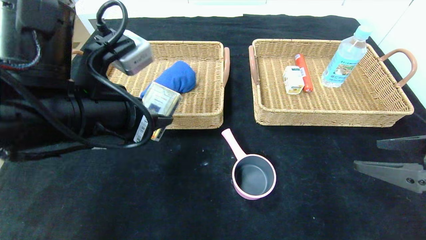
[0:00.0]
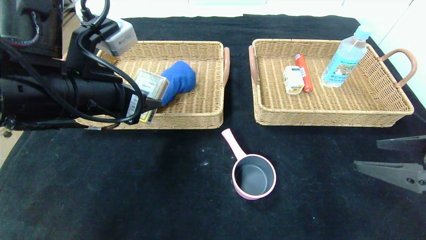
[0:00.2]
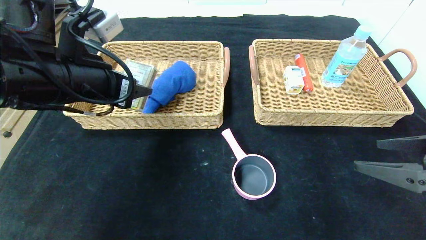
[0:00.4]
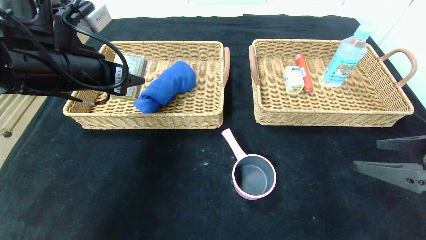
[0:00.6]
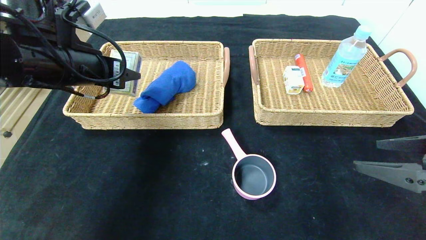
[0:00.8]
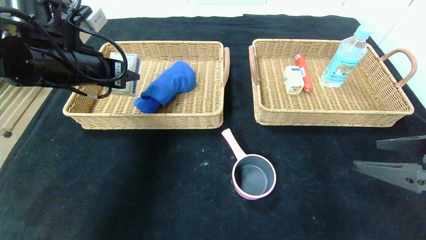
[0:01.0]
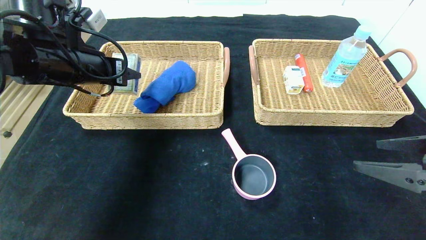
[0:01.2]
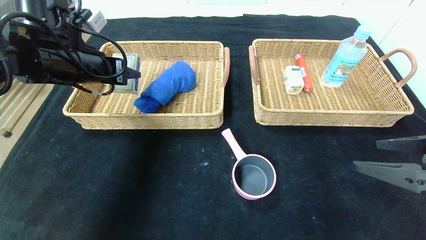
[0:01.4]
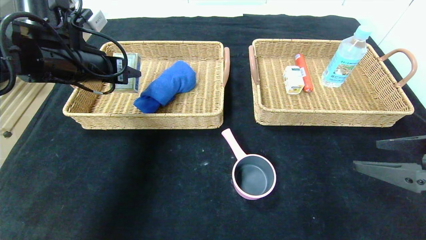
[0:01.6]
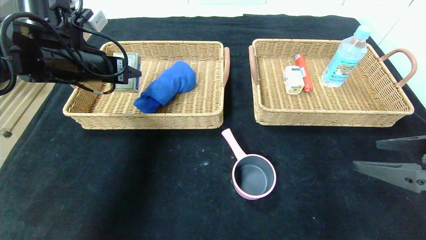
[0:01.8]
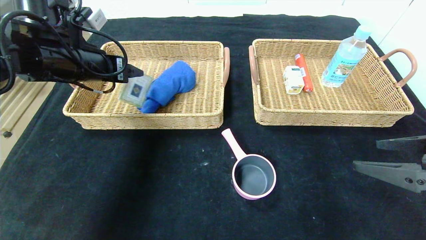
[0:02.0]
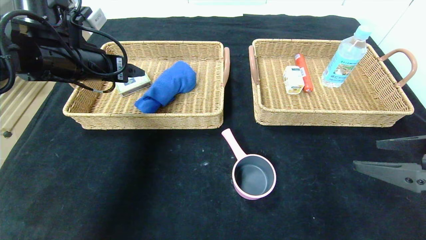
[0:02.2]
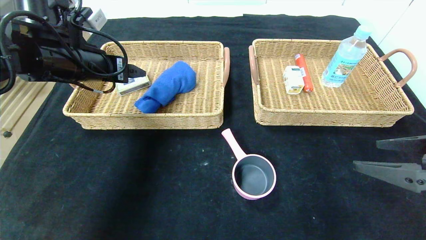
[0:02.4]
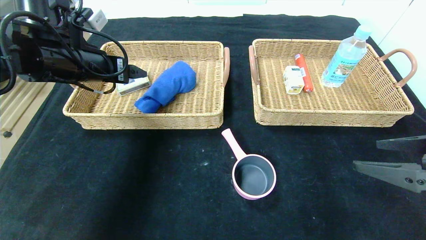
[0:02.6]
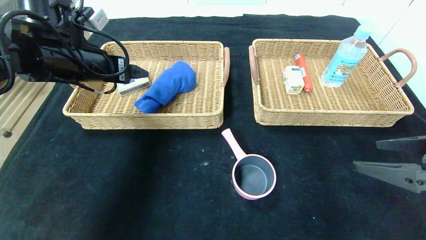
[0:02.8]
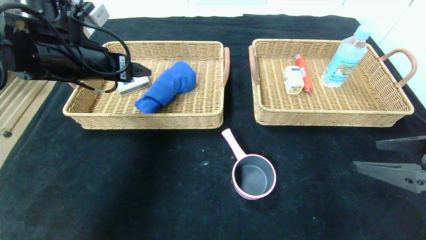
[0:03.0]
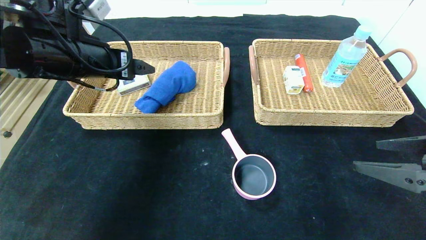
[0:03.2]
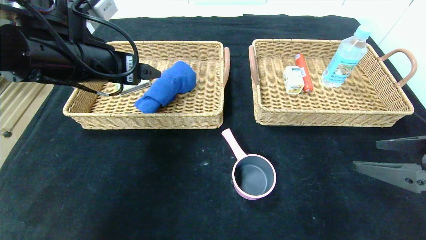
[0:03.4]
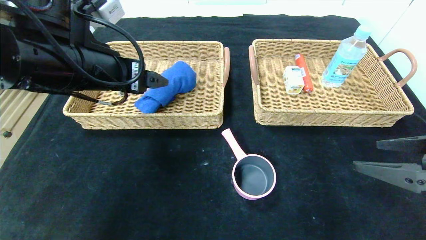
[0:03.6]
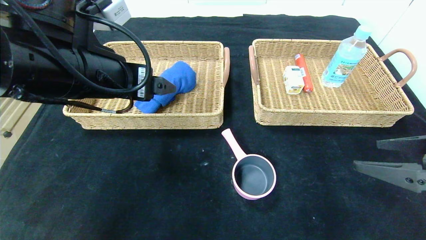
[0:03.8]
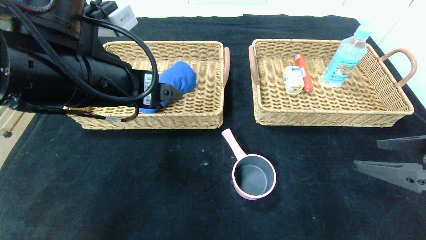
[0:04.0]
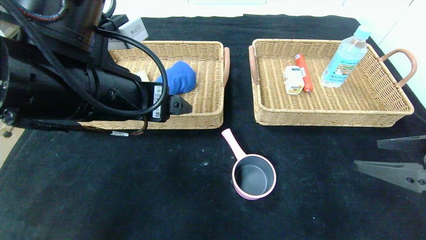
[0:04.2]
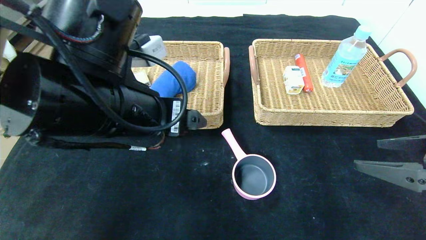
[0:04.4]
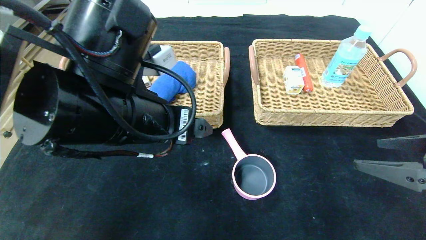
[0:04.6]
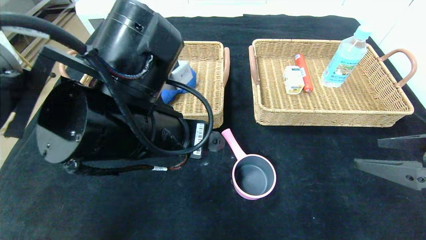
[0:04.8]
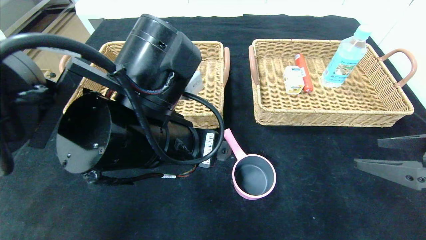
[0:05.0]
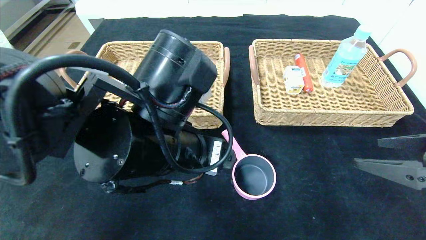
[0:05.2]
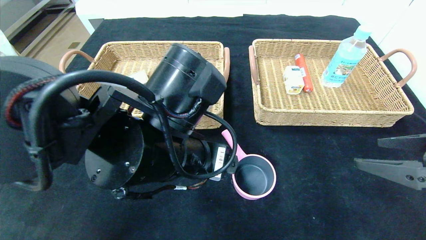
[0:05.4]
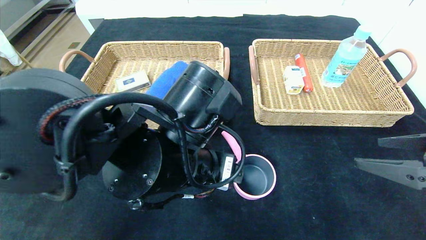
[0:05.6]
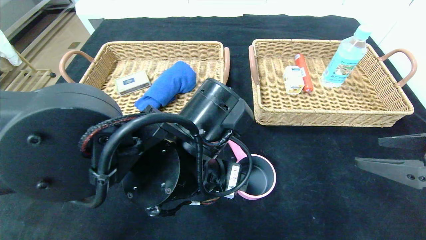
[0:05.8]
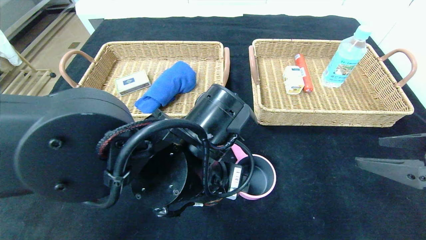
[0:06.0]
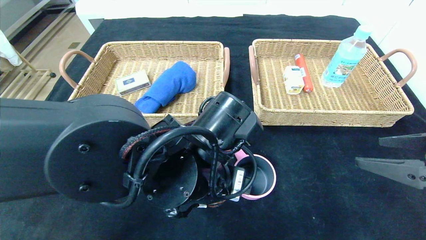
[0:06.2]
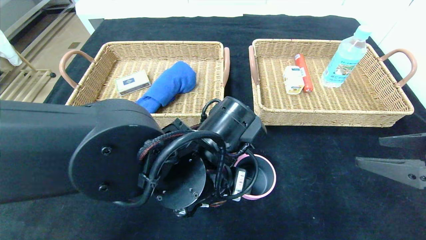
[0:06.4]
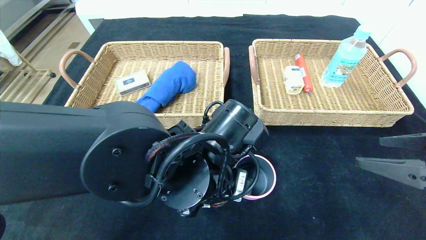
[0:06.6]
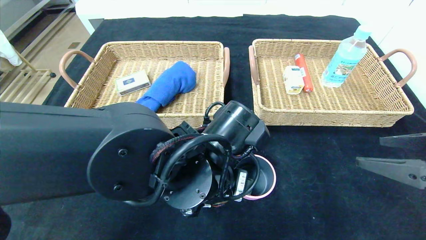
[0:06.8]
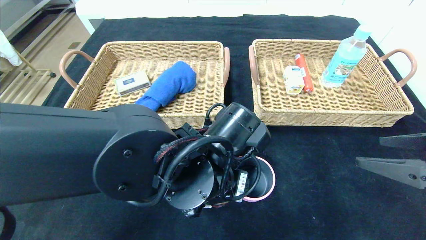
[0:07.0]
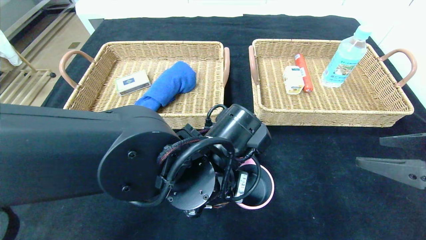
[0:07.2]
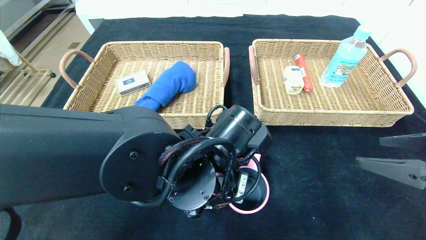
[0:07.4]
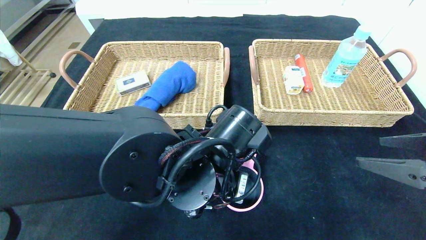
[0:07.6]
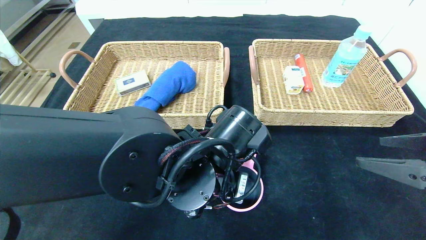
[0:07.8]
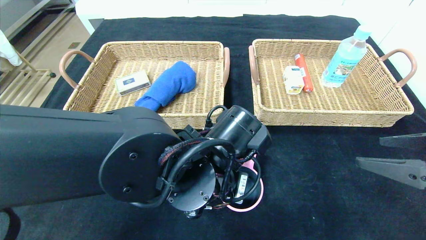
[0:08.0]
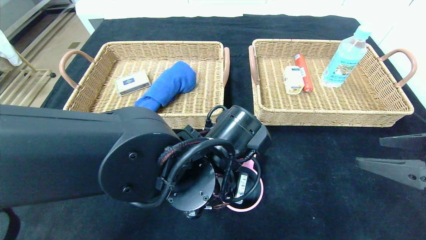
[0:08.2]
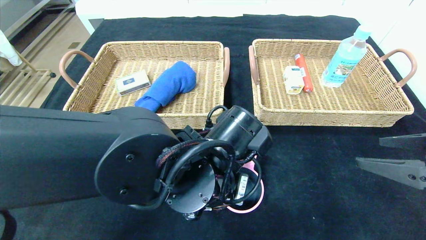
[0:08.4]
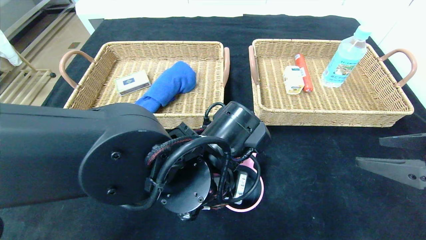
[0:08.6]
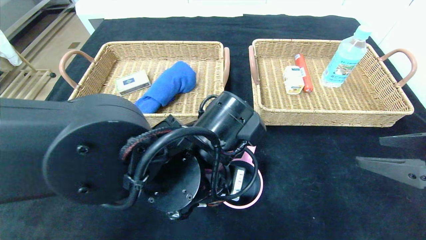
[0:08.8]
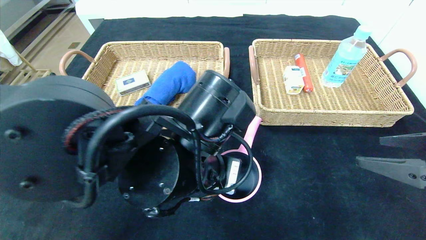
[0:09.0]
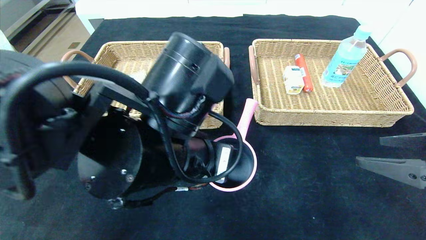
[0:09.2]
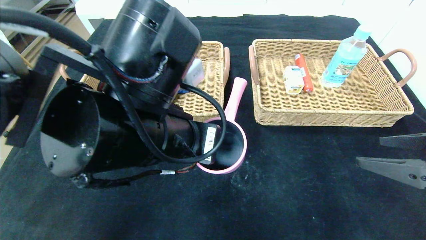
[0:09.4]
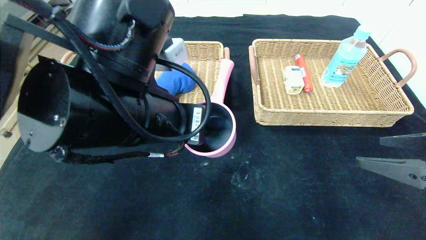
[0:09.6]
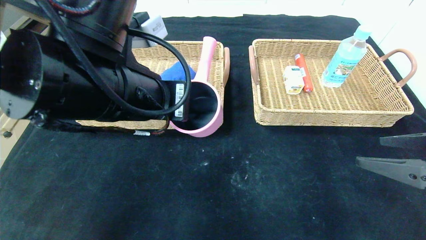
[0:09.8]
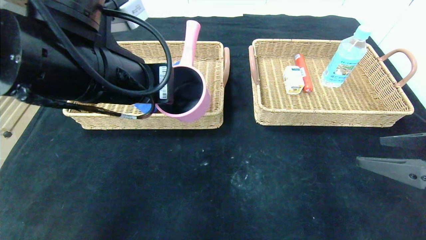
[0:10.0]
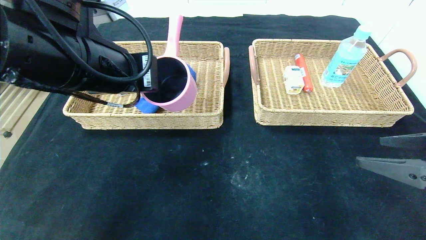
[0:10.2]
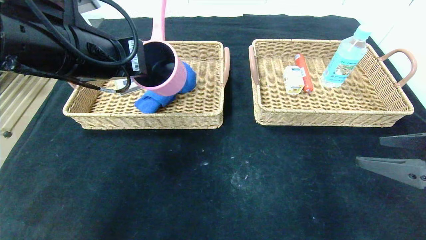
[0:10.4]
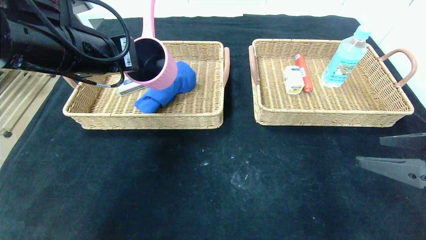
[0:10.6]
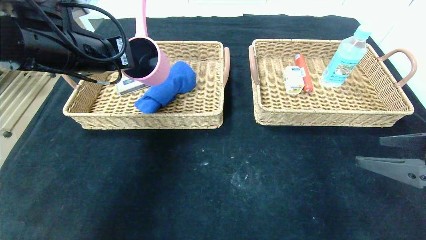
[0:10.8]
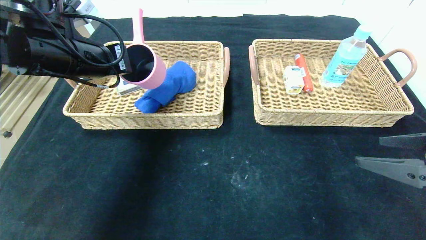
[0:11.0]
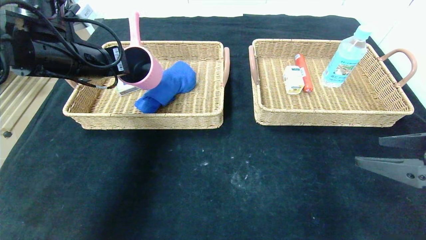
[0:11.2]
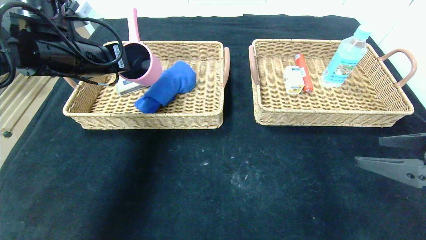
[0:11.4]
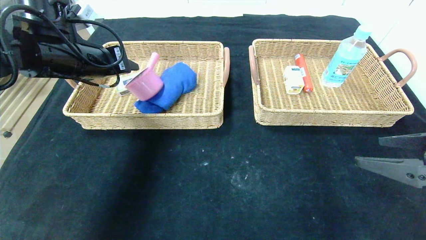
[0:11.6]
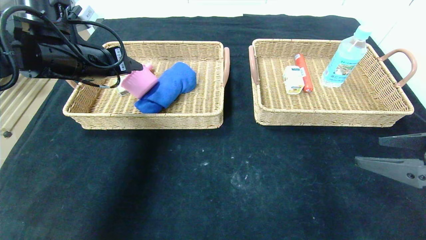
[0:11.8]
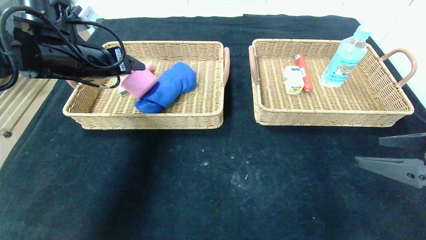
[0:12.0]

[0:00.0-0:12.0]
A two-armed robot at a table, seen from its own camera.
Step, 0:00.0 to 0:03.2: Grasp the playing cards and put it in the left basket.
0:00.0 to 0:01.6: The left gripper shifts some 15 cm forward and to the left.
0:01.6 to 0:03.0: The left gripper opens its fingers.
0:03.0 to 0:04.4: The left gripper is displaced to the right and backward by approximately 15 cm.
0:04.4 to 0:06.0: The left gripper goes approximately 10 cm downward and to the right.
0:06.0 to 0:07.6: The left gripper closes up.
0:07.6 to 0:09.0: The left gripper changes place by roughly 5 cm.
0:09.0 to 0:10.4: The left gripper heads to the left, upward and forward, covering approximately 20 cm.
0:10.4 to 0:12.0: The left gripper goes some 10 cm forward and to the left, and opens.

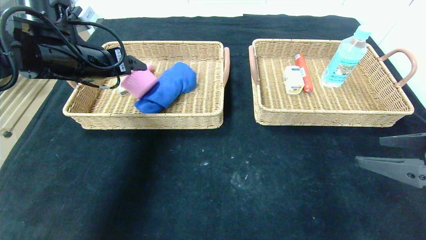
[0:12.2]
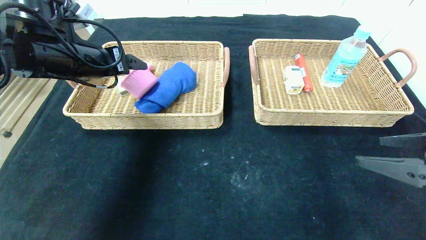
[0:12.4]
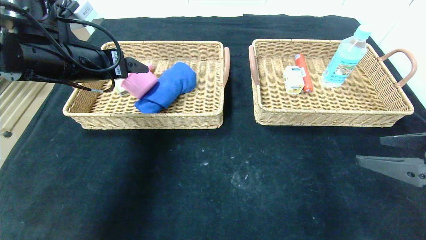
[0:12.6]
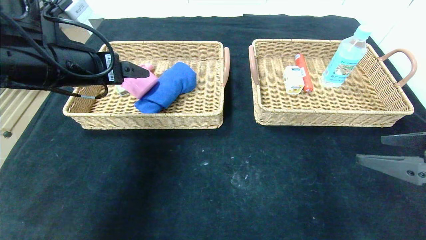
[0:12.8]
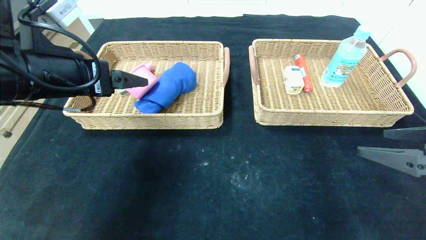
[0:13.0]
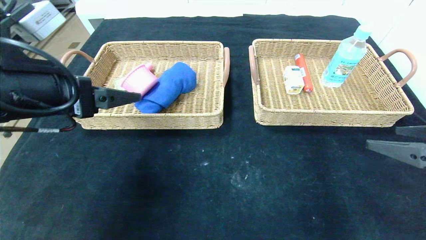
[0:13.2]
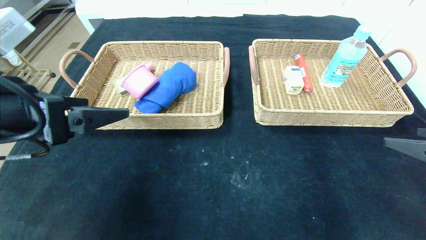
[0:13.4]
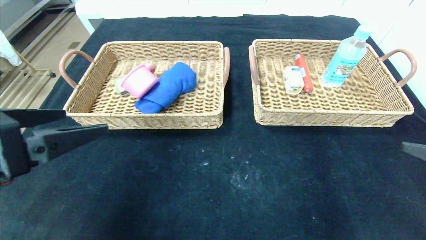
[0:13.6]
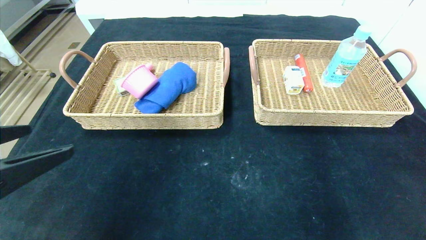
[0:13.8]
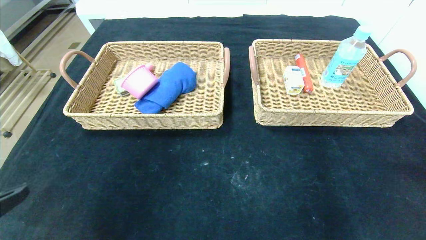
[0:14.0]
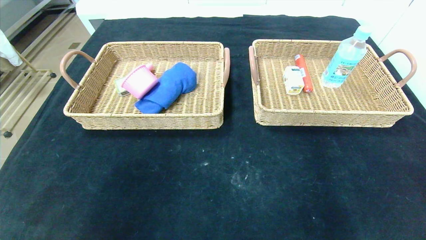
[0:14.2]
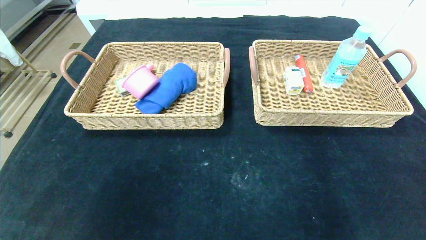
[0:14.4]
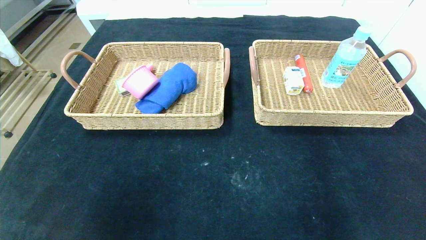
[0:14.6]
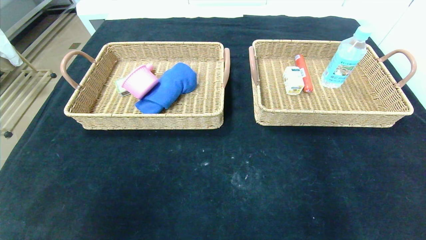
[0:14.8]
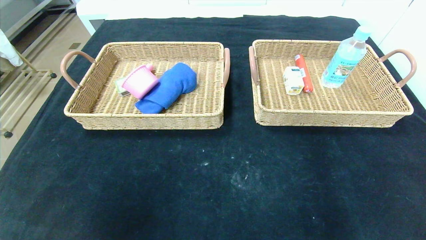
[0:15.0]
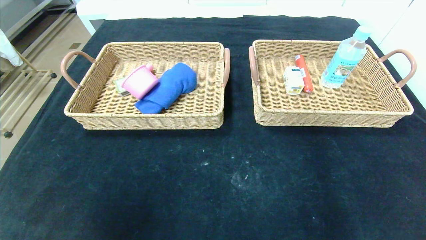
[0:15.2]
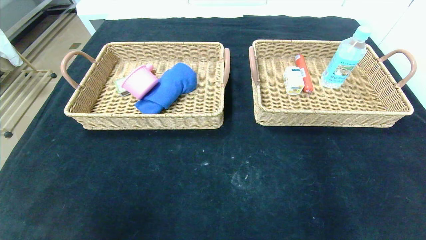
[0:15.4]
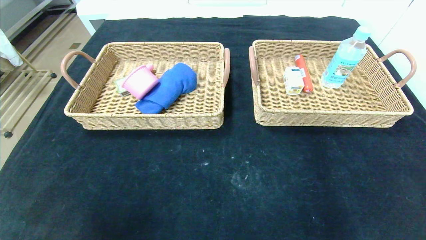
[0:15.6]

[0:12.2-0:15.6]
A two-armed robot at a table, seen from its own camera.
Step, 0:12.2 to 0:15.4: Grasp the pink pot and put it in the left basket.
0:12.2 to 0:13.8: The right gripper goes approximately 5 cm backward; the left gripper shifts roughly 25 cm backward.
0:13.8 to 0:15.6: Both grippers move backward and downward, about 20 cm.

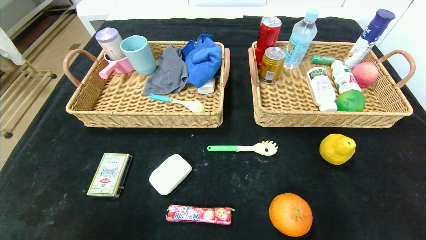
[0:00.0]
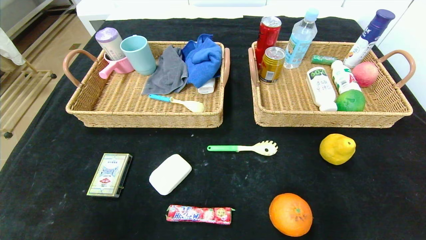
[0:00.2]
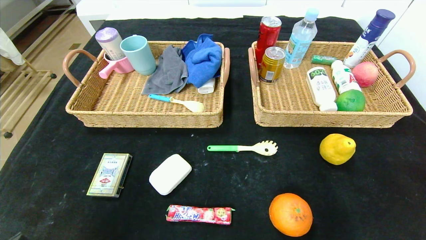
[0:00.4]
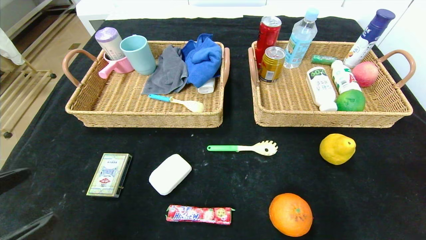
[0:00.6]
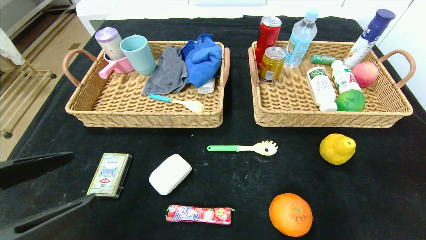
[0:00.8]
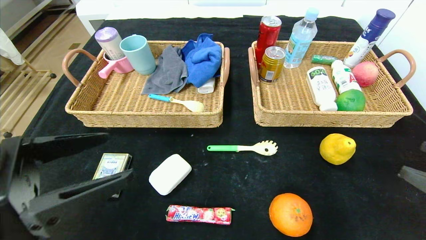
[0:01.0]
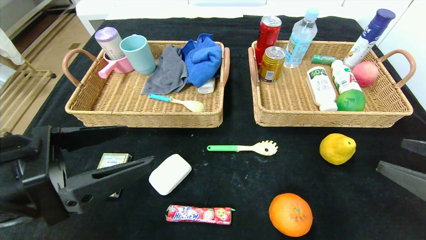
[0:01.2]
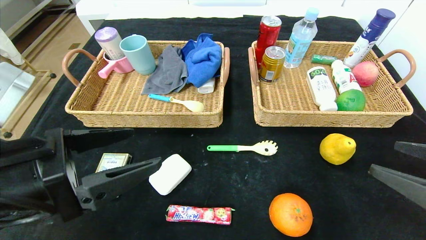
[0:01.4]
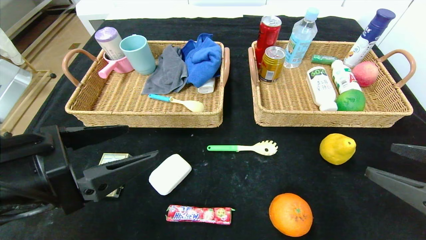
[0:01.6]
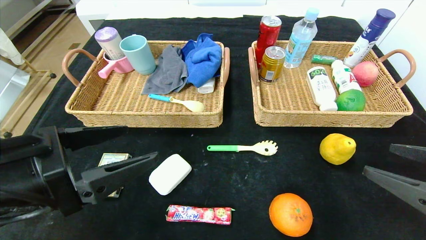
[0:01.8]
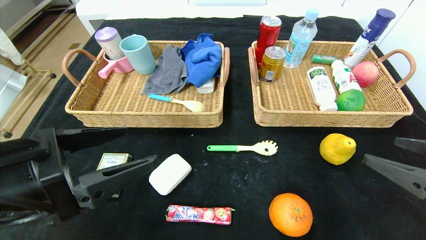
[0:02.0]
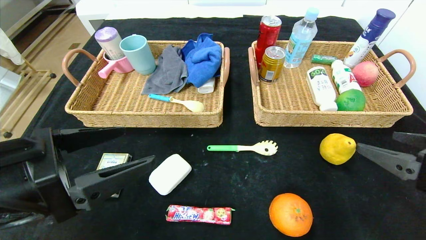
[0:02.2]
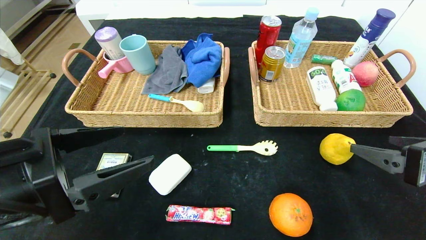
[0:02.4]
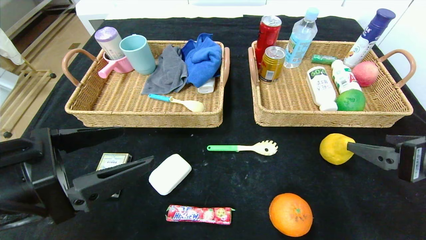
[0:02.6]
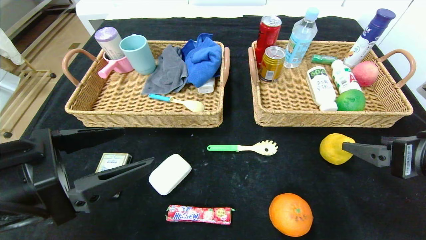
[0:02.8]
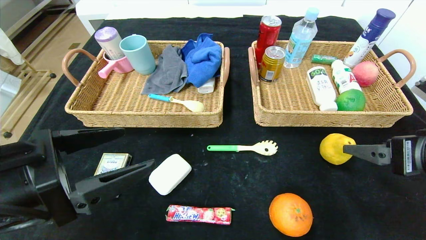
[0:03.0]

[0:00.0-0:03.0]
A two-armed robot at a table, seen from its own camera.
0:00.0 to 0:01.6: The right gripper goes roughly 15 cm forward and upward; the left gripper goes some 20 cm forward, upward and to the right.
0:01.6 to 0:03.0: The right gripper is displaced forward by some 5 cm.